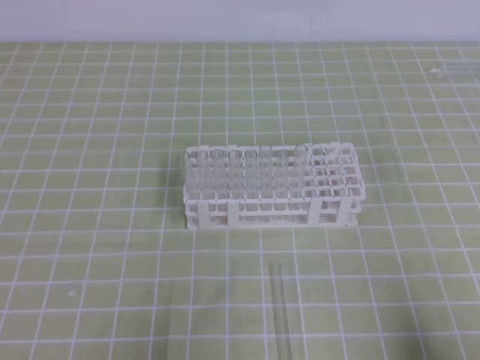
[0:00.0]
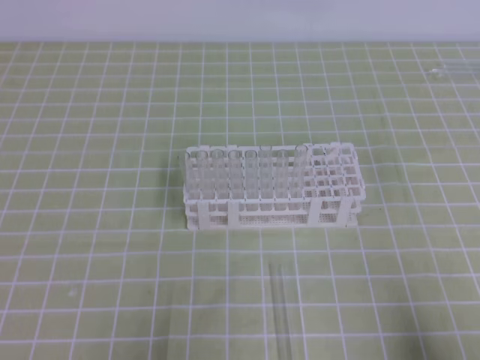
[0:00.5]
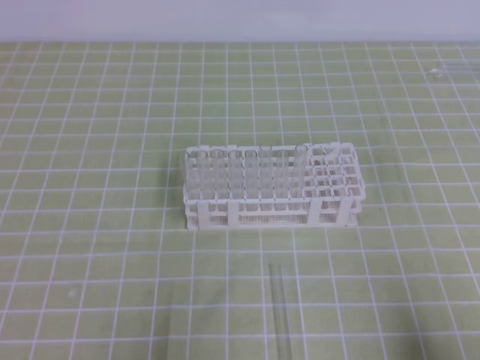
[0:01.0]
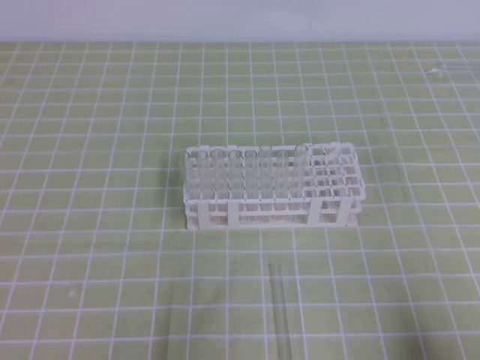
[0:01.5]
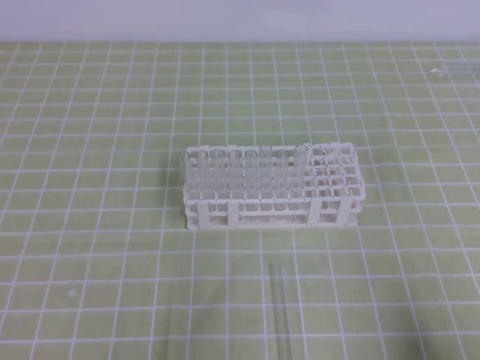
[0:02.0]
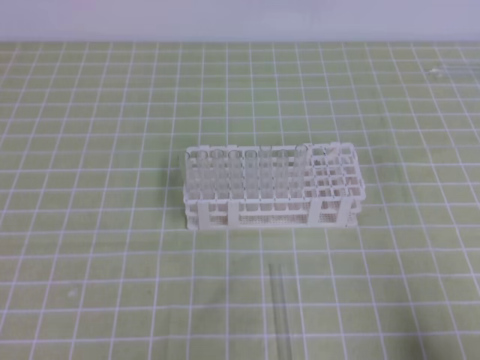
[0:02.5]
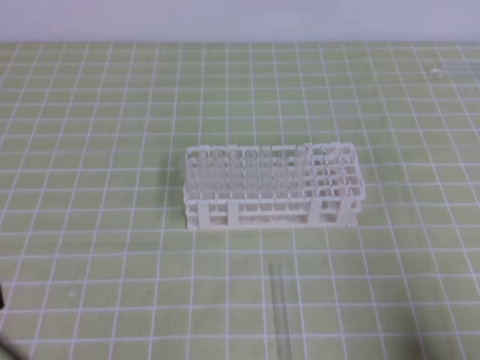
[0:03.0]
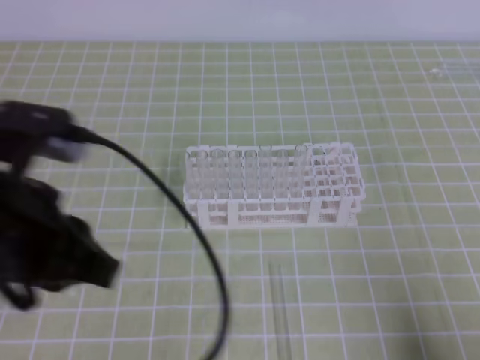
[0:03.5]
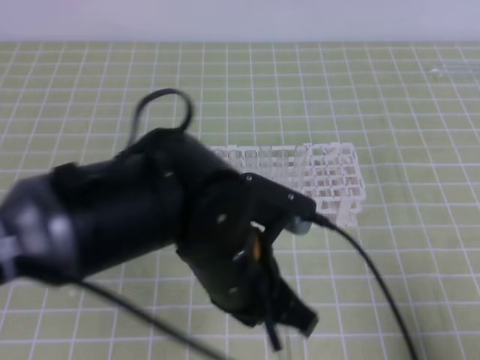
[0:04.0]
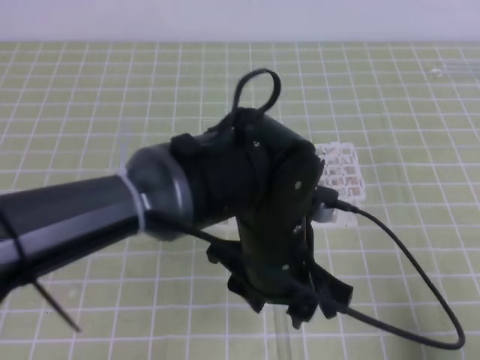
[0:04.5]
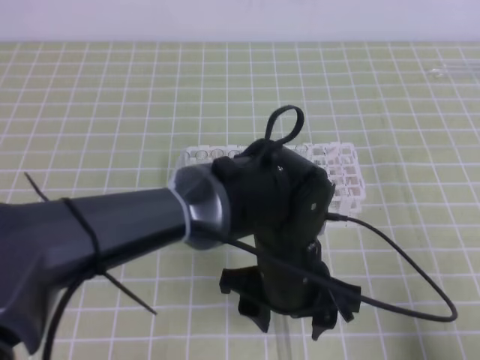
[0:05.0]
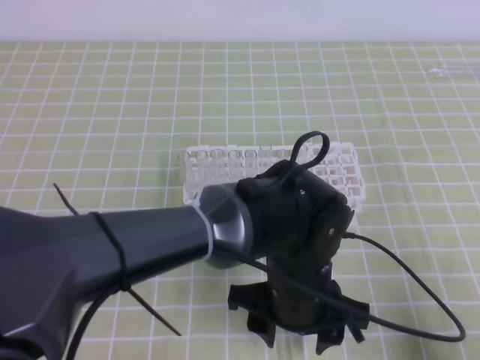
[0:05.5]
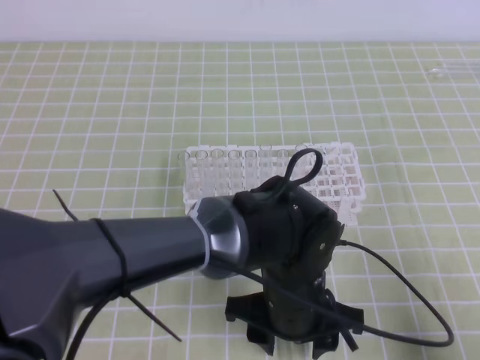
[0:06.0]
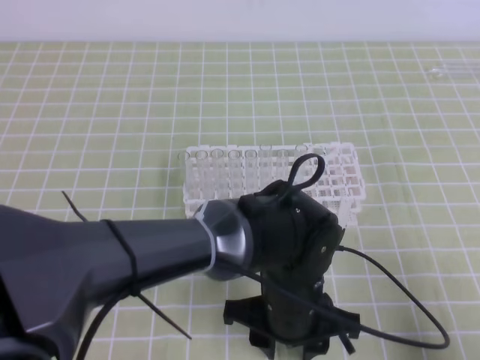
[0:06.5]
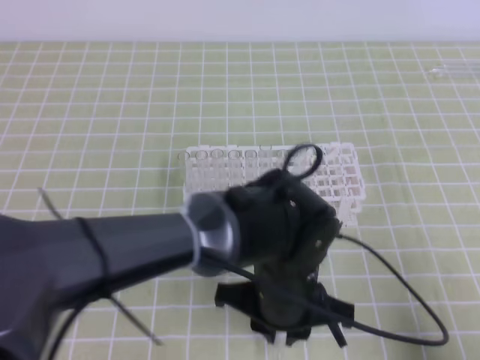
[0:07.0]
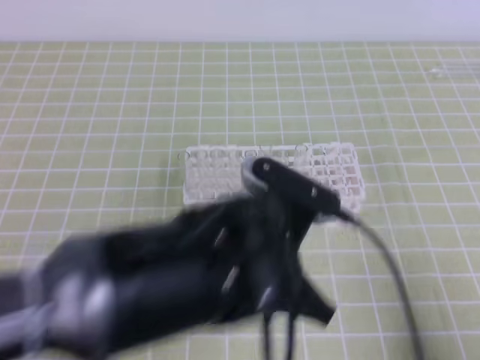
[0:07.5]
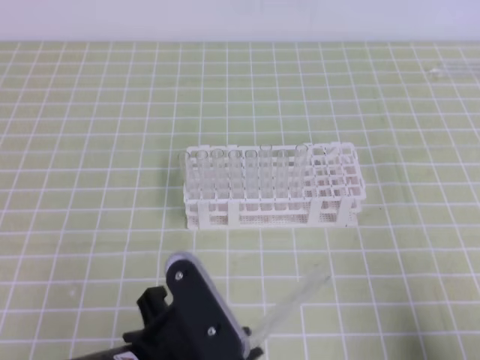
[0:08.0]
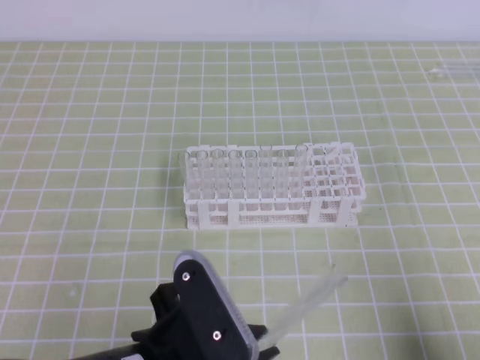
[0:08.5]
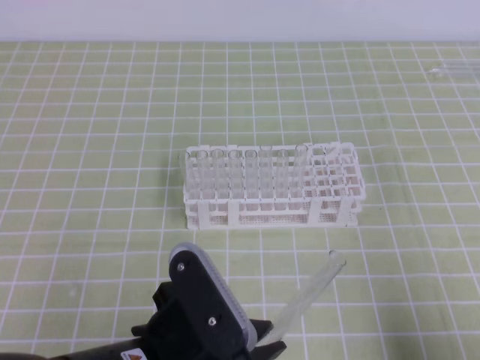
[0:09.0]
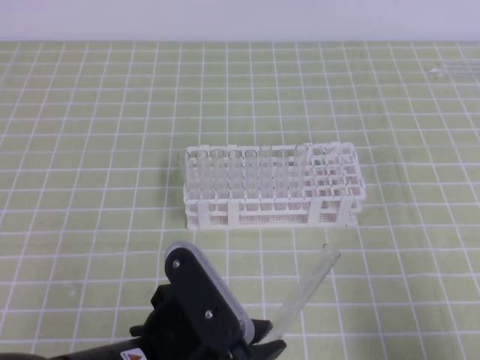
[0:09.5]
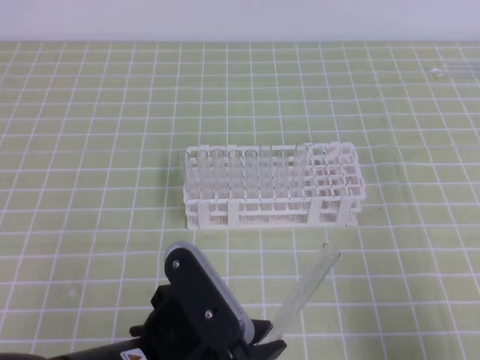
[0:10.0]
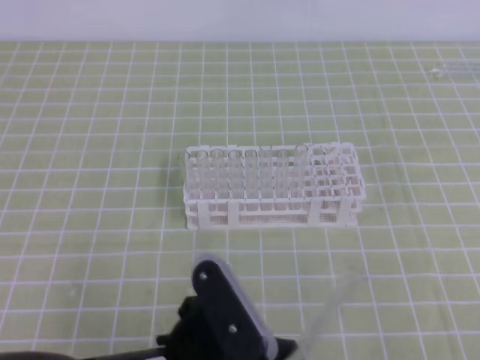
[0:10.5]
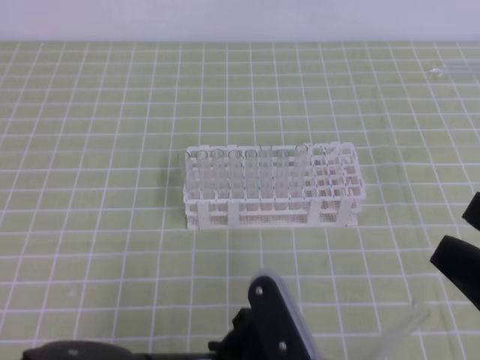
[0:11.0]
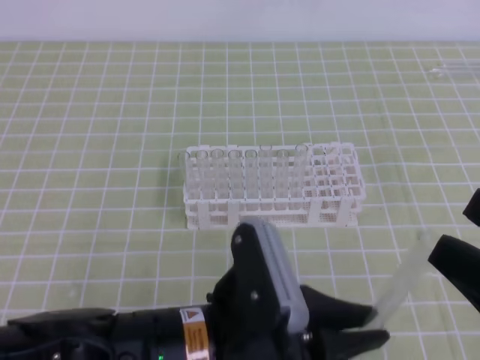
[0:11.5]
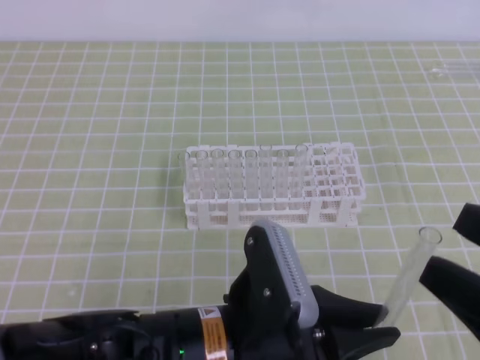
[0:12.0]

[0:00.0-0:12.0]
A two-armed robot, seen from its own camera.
0:02.0 to 0:04.0: The left gripper goes approximately 25 cm to the right and forward.
0:04.0 to 0:06.0: The left gripper travels downward and to the right by approximately 15 cm, and opens.
0:06.0 to 0:08.0: The left gripper shifts about 15 cm to the left, backward and upward, and closes its fingers.
0:10.0 to 0:12.0: The right gripper travels upward and to the left by approximately 10 cm, and opens its fingers. The left gripper shifts some 5 cm to the right.

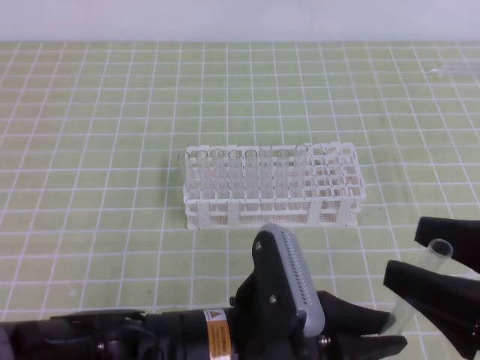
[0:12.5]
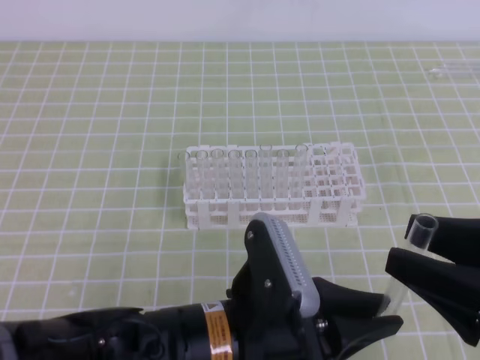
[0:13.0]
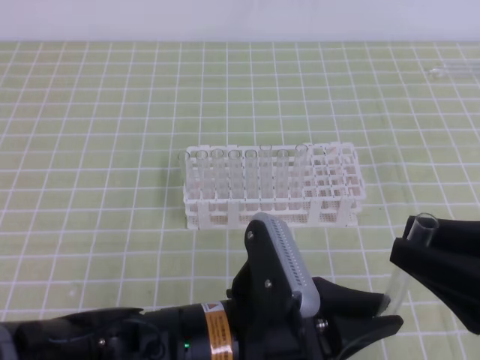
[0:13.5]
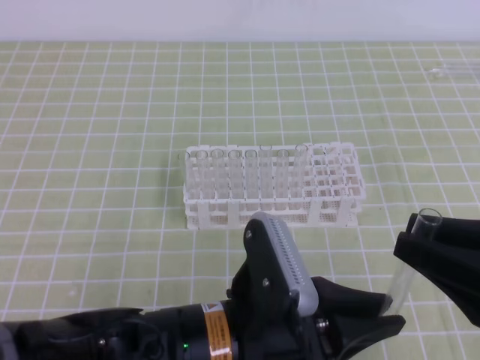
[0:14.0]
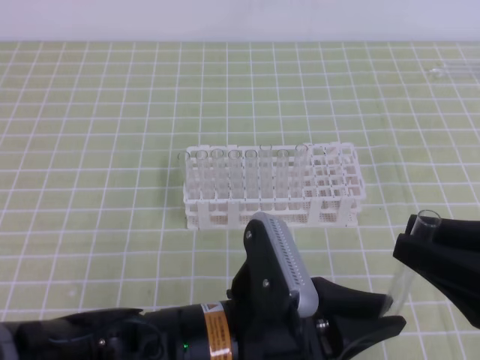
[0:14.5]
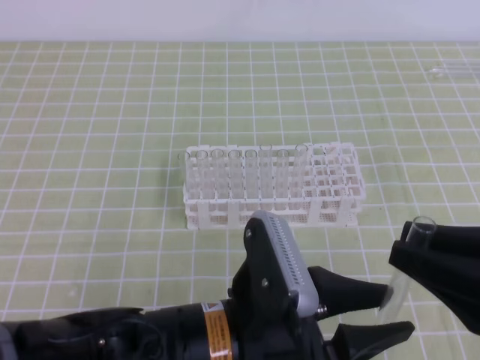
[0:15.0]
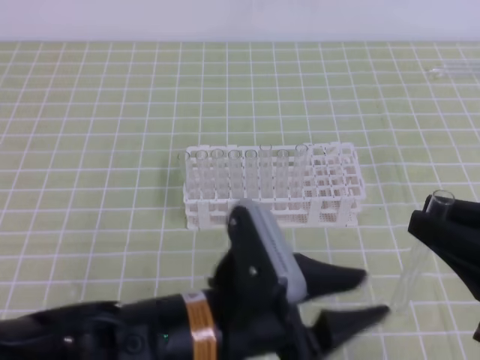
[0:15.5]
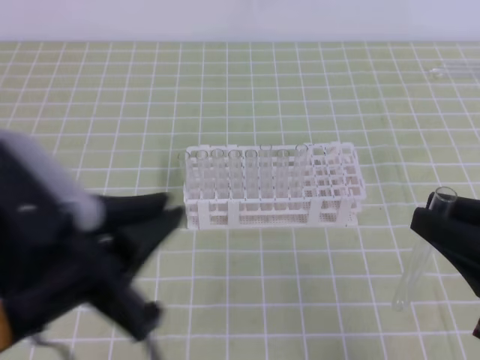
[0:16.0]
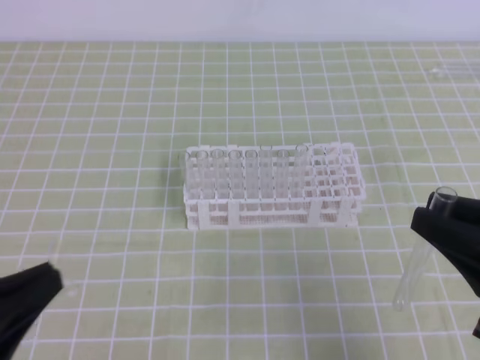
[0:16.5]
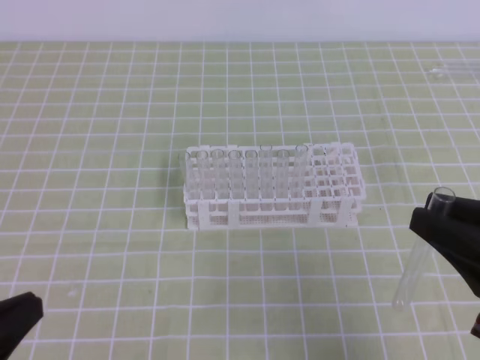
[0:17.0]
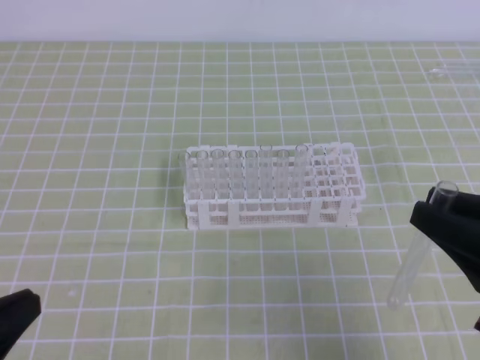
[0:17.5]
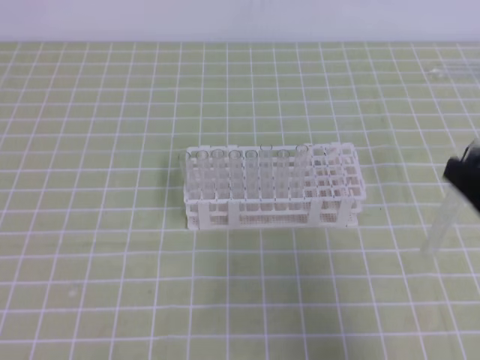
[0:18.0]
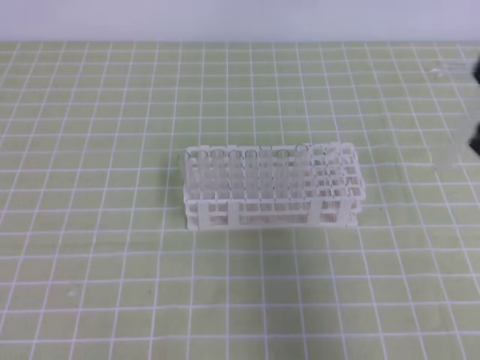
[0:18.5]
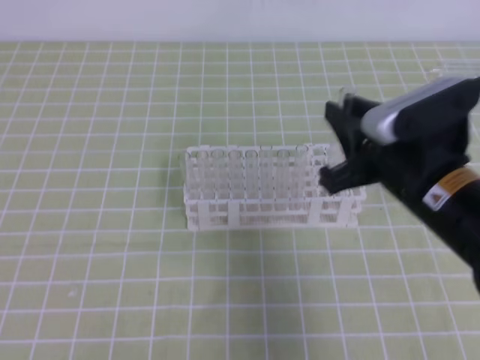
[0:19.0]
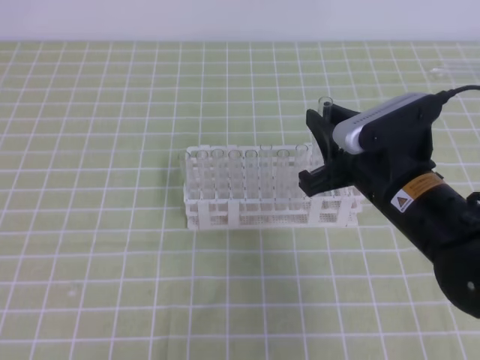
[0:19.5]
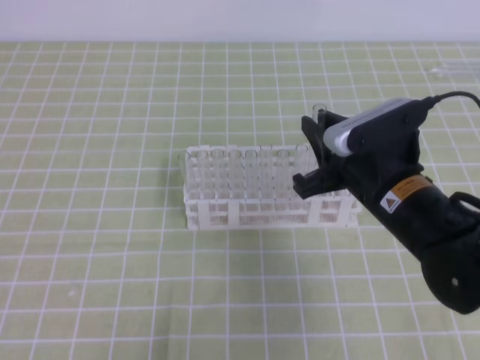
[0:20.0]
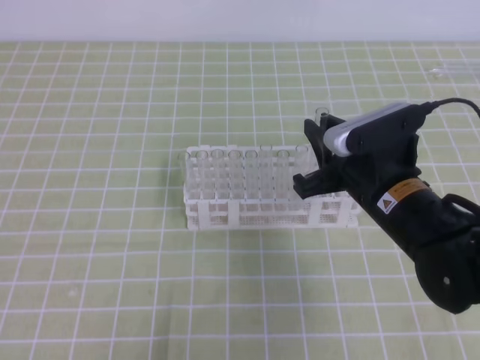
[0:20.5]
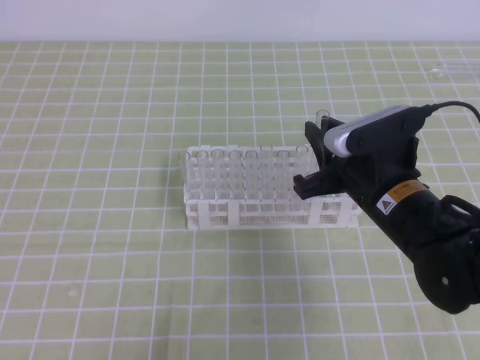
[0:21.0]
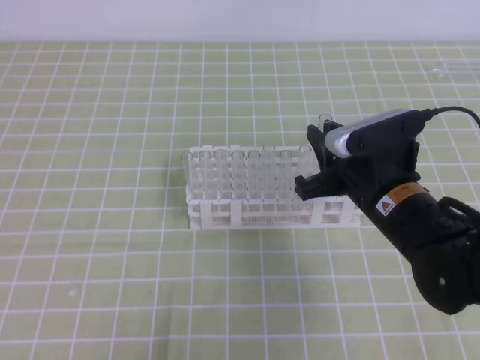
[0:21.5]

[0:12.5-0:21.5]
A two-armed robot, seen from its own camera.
0:12.5 to 0:14.5: The right gripper closes.
0:14.5 to 0:17.0: The left gripper shifts about 25 cm to the left, and opens, then closes once more.
0:17.0 to 0:19.5: The left gripper travels downward by roughly 5 cm; the right gripper goes approximately 15 cm forward and to the left.
0:19.5 to 0:21.5: The grippers move only a little.

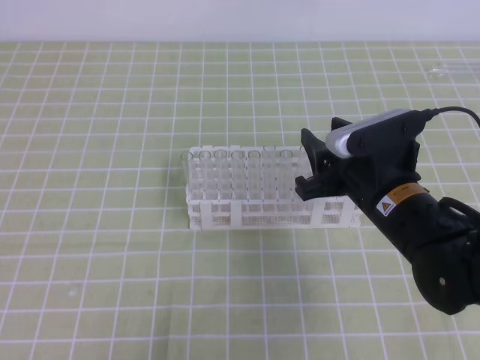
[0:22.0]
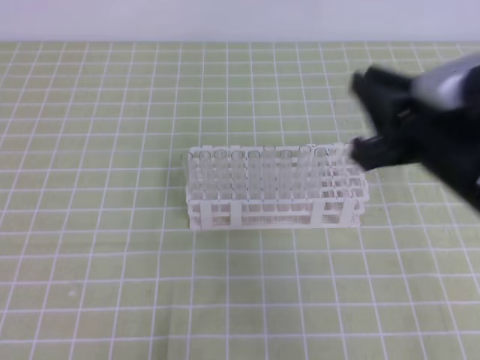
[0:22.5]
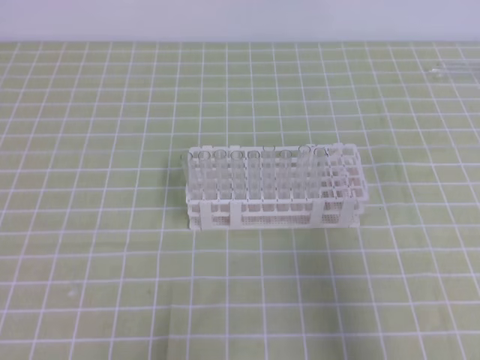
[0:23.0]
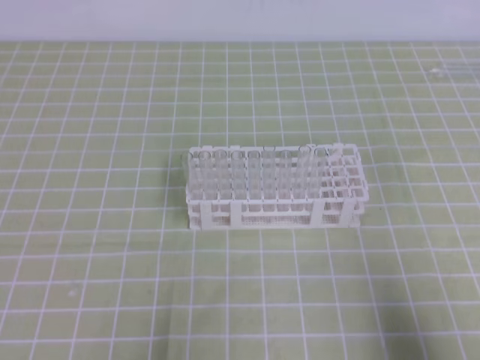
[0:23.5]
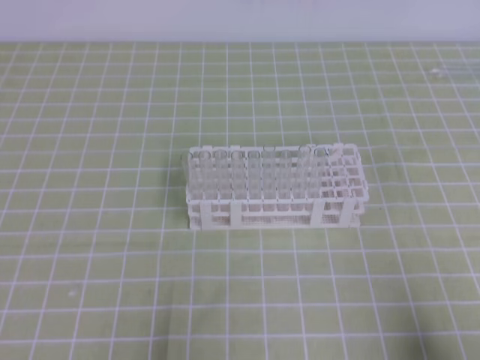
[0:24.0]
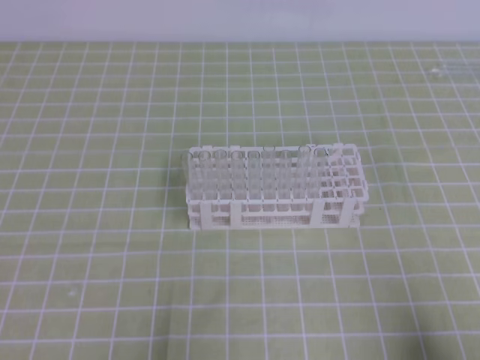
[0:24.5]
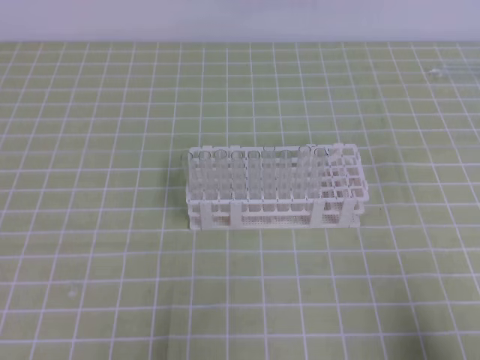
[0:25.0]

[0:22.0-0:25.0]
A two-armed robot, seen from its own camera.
0:22.0 to 0:23.5: The right gripper travels backward and to the right by approximately 25 cm, and closes up.
